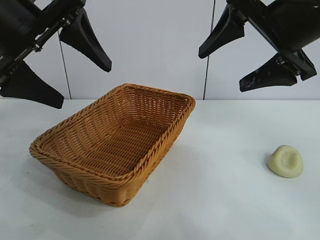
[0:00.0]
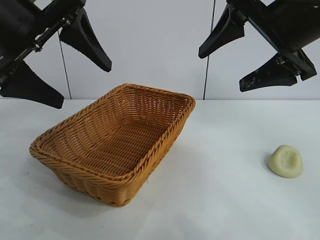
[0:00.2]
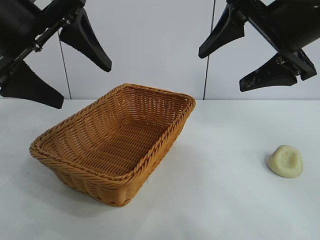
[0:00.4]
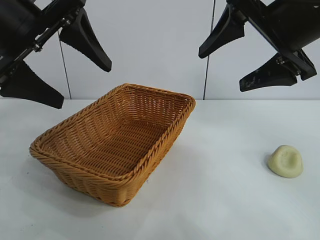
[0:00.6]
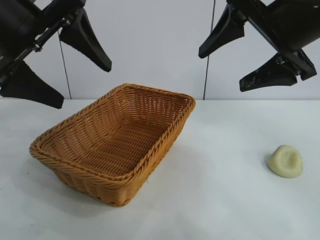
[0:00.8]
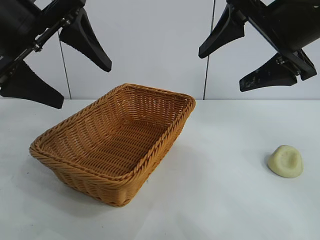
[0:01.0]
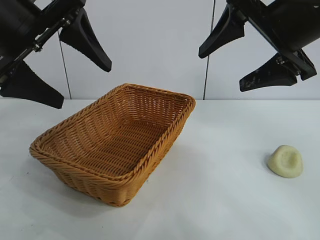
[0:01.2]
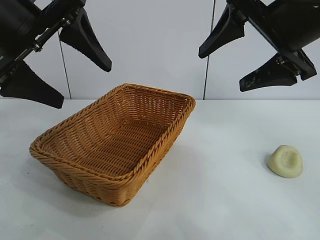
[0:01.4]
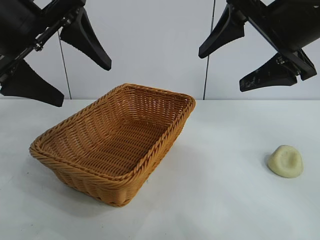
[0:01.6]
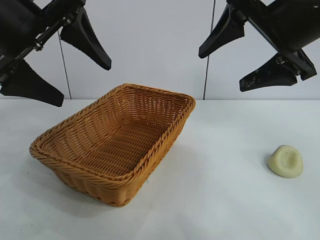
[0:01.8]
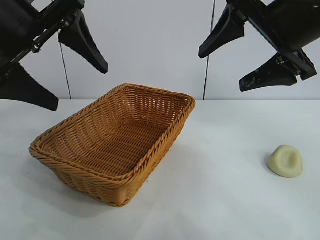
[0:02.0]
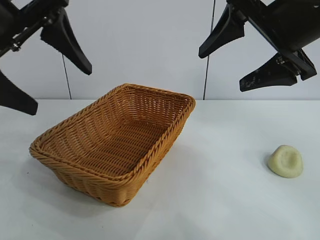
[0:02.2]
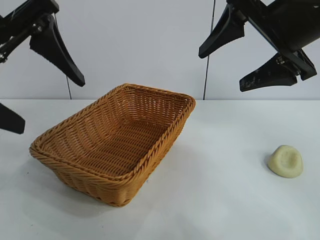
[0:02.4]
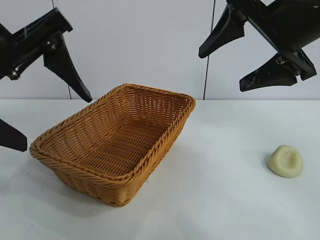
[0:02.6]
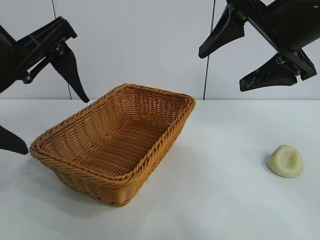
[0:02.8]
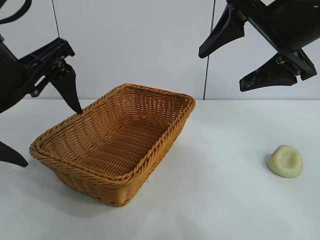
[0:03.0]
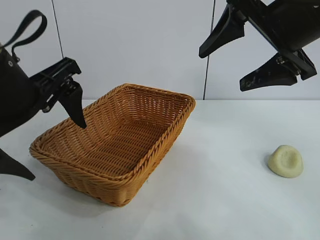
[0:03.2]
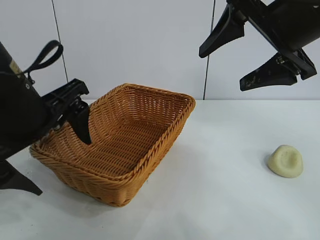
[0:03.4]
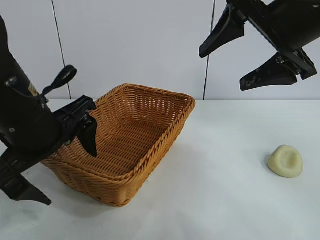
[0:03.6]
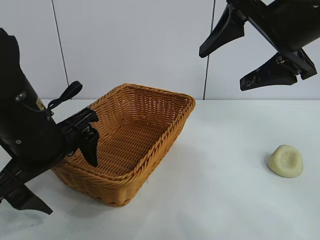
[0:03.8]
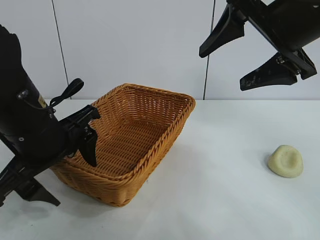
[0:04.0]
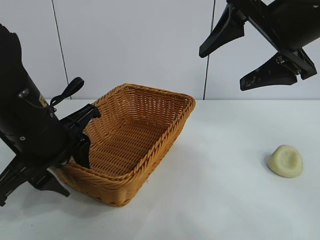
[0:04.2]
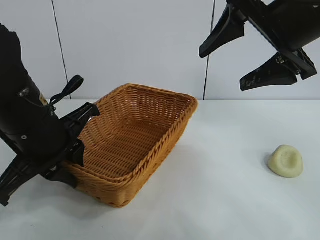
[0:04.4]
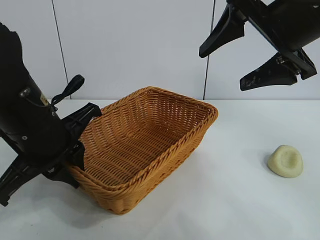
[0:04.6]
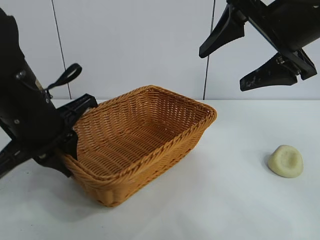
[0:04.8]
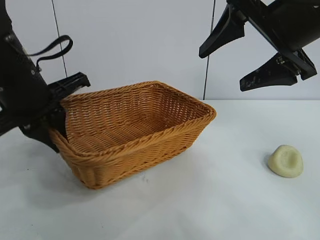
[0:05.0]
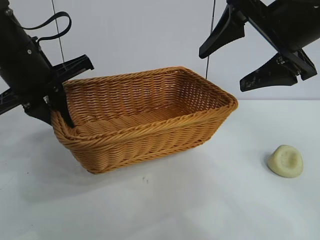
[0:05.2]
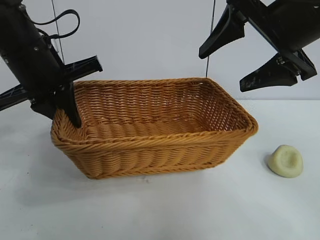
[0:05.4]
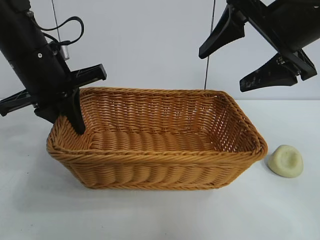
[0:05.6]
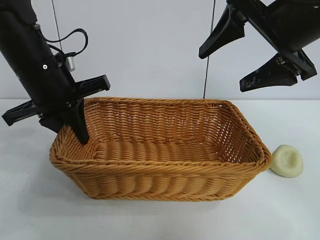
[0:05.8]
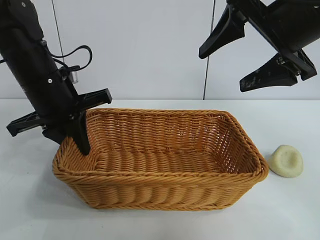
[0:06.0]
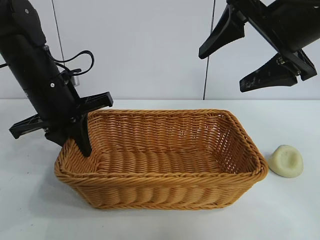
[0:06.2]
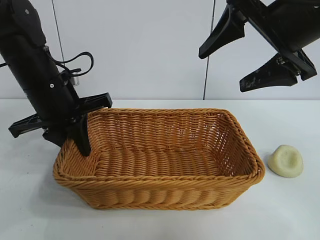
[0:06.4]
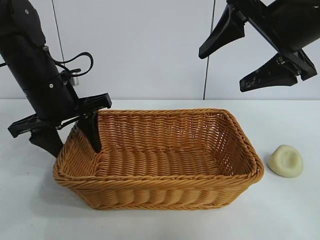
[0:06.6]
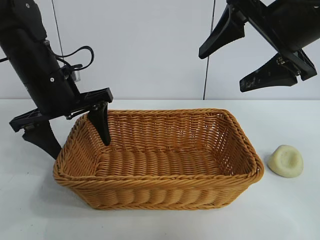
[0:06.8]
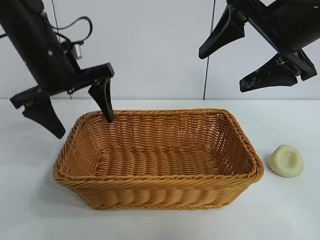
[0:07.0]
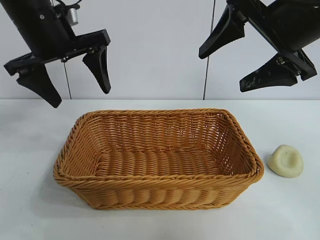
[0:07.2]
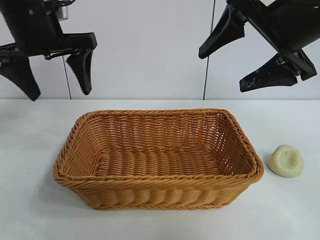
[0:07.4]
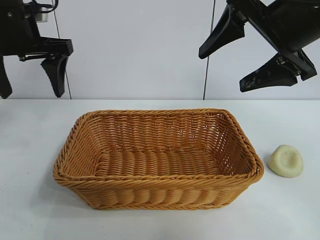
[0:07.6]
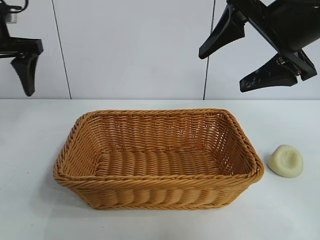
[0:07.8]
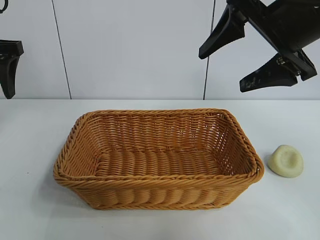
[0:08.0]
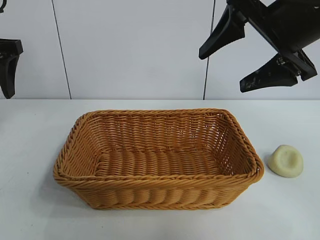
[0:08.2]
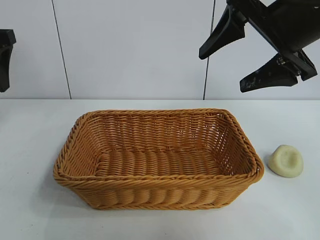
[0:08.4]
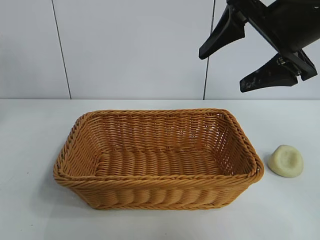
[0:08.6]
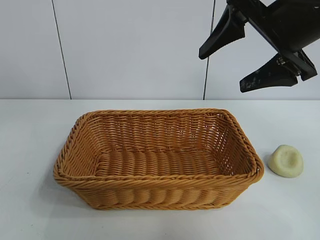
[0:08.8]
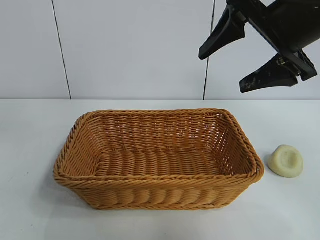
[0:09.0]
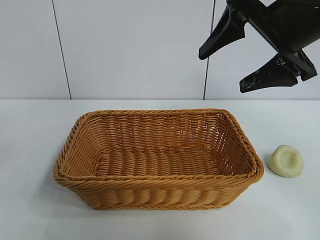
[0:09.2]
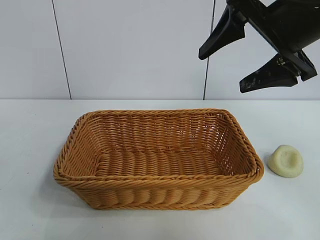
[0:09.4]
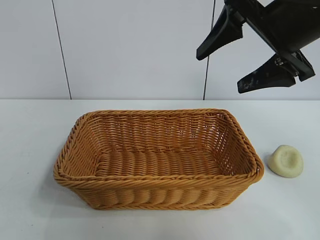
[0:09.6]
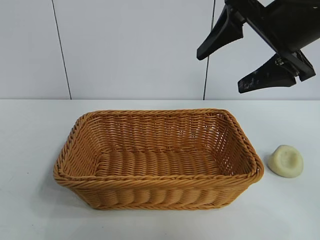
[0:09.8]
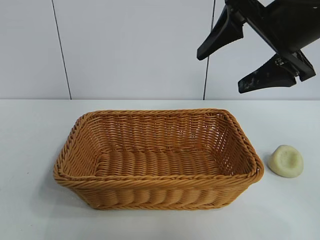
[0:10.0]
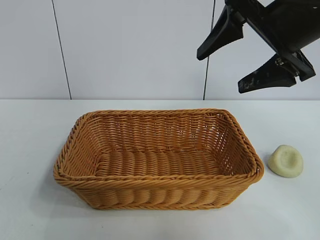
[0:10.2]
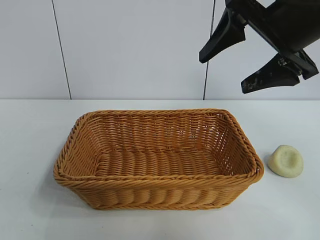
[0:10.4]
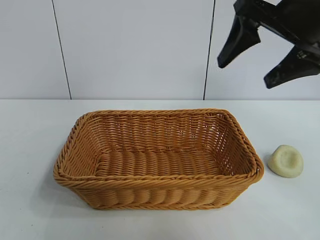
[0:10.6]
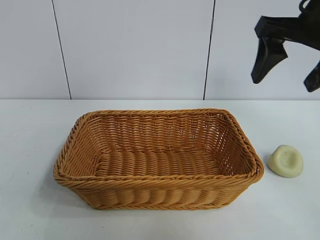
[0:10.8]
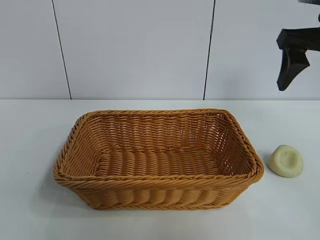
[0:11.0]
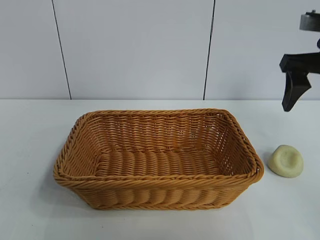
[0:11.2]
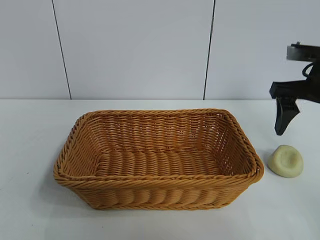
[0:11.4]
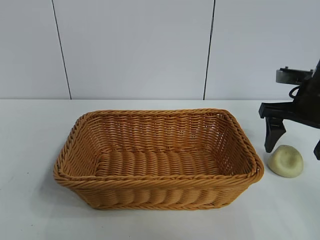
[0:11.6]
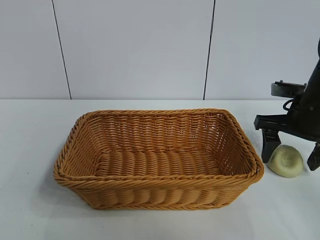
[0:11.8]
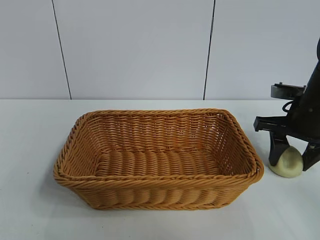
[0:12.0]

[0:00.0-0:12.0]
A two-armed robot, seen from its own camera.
Task of the whole recording: pick up the egg yolk pastry and put it into the basket.
Step, 1.4 to 4.4 s: Grasp the basket with left gripper.
Step, 4.6 to 6.6 s: Place the basket in the center of view with left gripper.

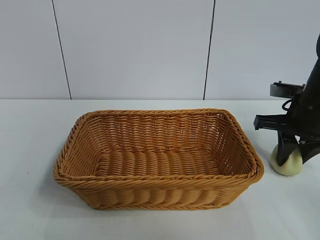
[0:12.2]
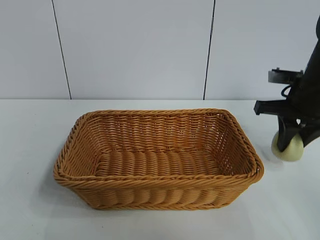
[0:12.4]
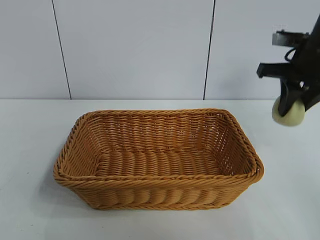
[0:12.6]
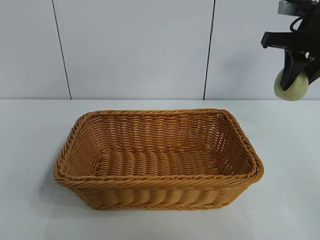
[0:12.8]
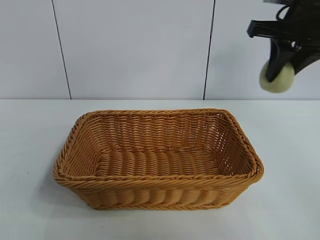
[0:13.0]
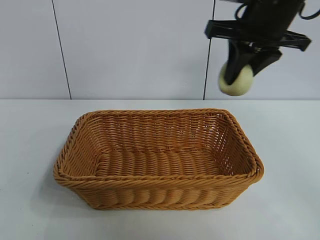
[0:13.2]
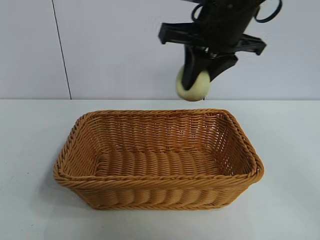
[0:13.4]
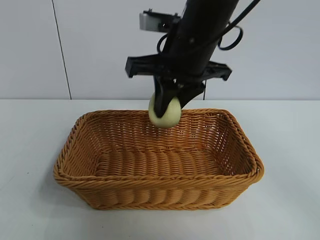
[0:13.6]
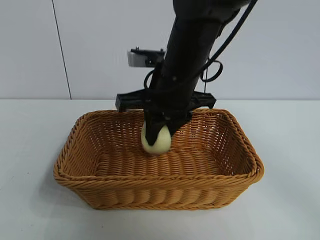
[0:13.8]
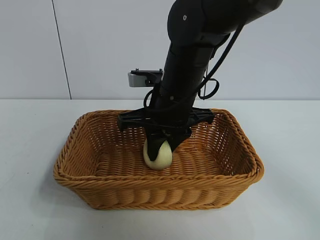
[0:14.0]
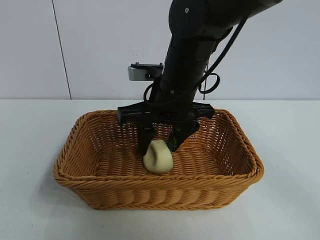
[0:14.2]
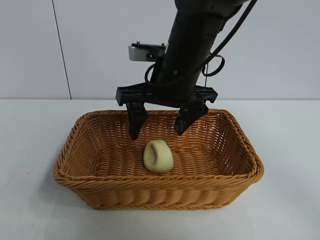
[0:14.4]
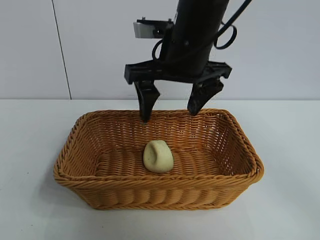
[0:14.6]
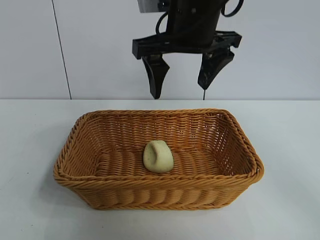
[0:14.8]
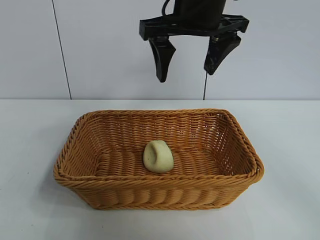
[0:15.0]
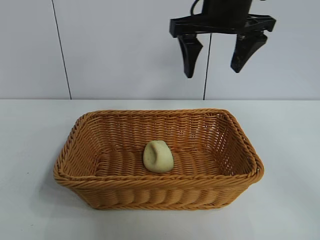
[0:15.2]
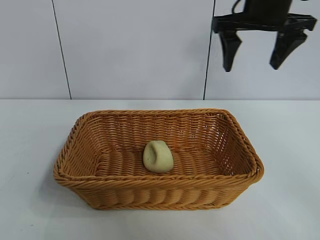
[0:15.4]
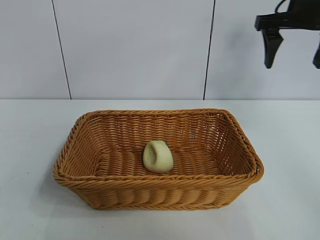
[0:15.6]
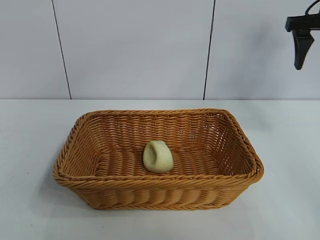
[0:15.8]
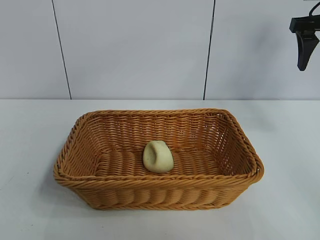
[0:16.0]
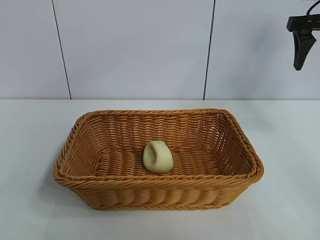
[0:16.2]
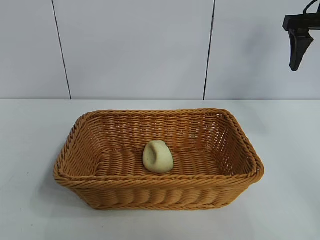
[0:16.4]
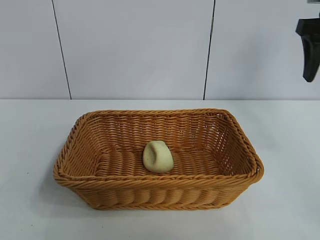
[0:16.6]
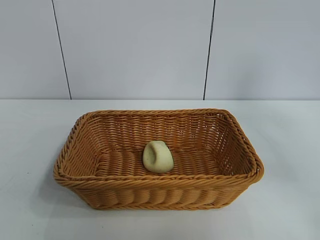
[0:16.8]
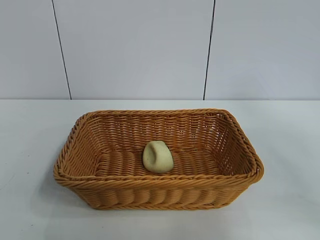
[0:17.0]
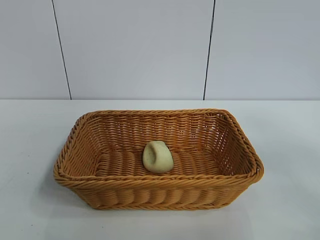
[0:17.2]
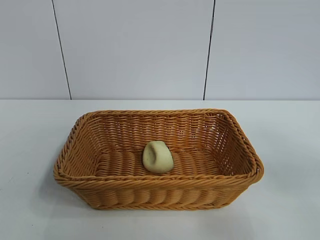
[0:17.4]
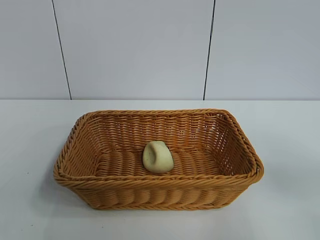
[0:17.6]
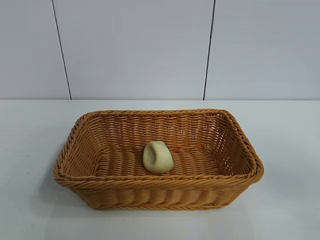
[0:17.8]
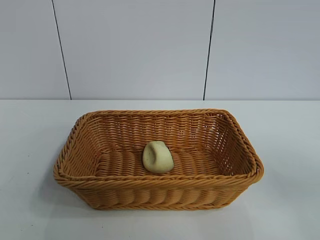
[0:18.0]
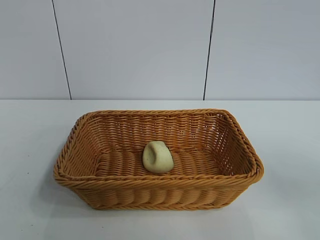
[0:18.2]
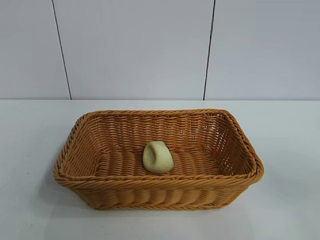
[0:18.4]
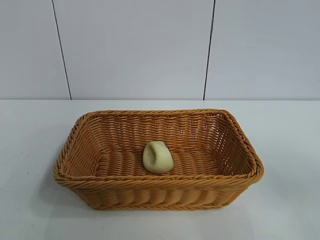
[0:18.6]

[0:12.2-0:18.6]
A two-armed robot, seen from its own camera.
Task of the whole recording: pick up the egg yolk pastry and put it into the basket.
Step, 12.4 to 14.2 s: Place the egg yolk pastry in the basket with right gripper.

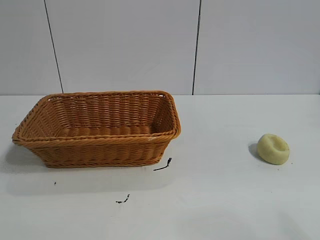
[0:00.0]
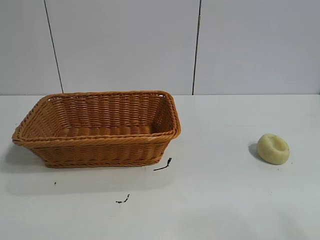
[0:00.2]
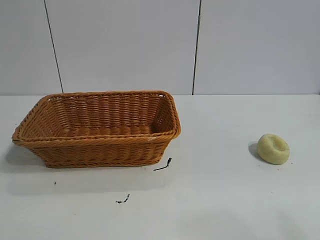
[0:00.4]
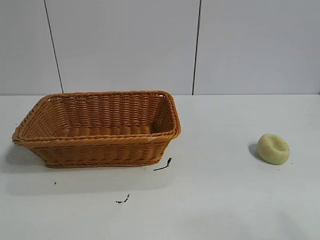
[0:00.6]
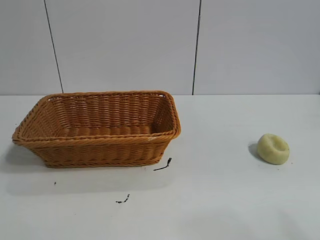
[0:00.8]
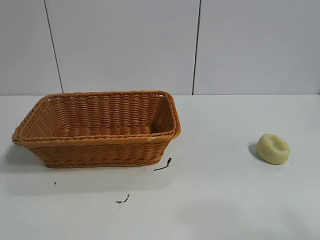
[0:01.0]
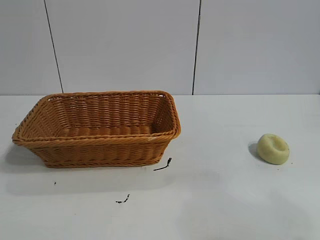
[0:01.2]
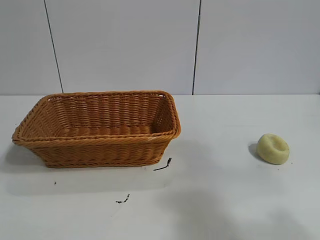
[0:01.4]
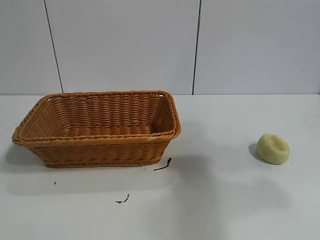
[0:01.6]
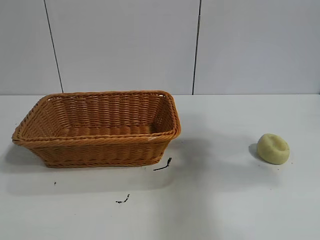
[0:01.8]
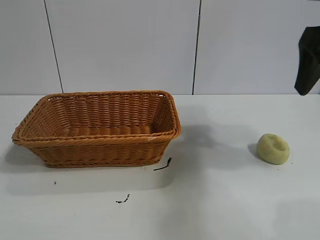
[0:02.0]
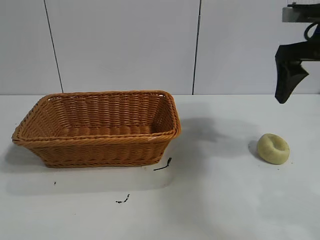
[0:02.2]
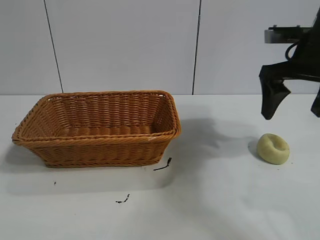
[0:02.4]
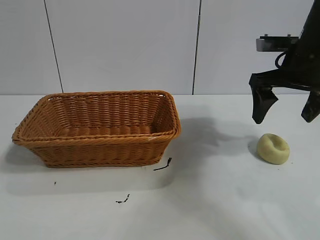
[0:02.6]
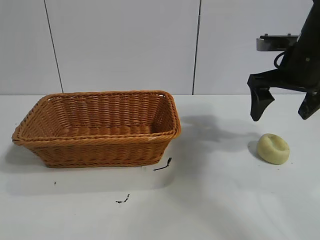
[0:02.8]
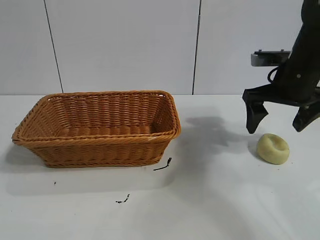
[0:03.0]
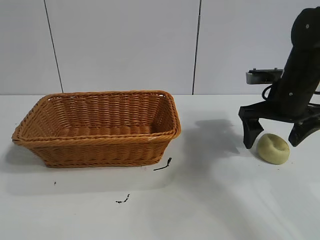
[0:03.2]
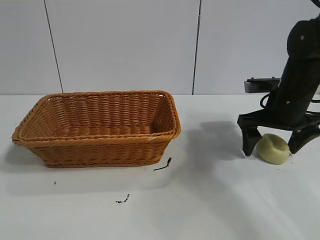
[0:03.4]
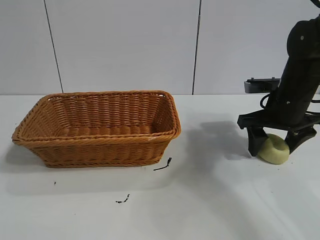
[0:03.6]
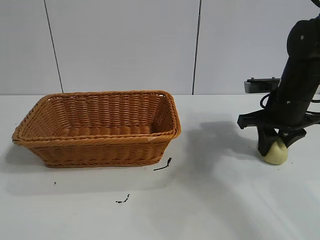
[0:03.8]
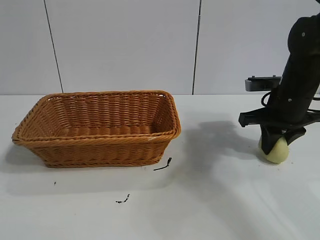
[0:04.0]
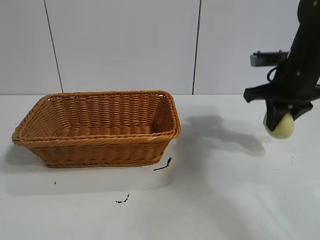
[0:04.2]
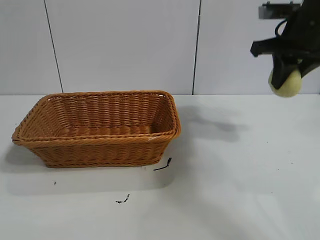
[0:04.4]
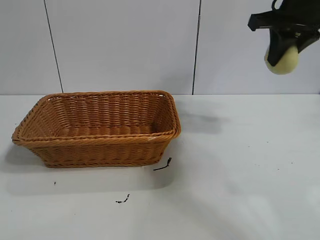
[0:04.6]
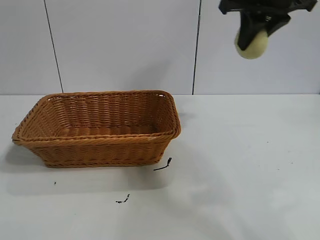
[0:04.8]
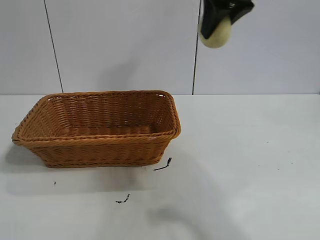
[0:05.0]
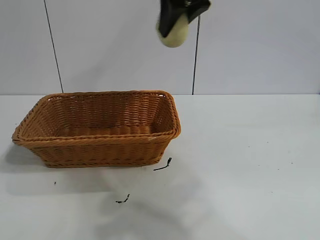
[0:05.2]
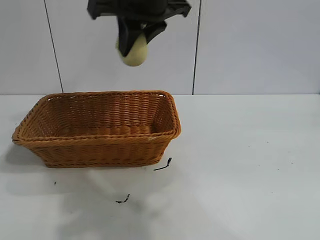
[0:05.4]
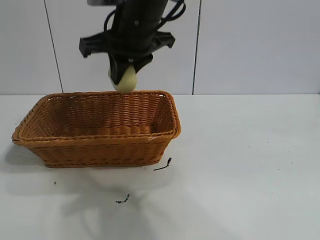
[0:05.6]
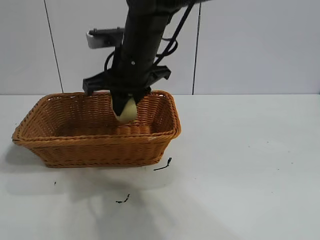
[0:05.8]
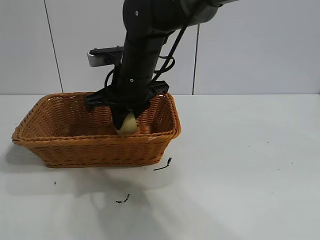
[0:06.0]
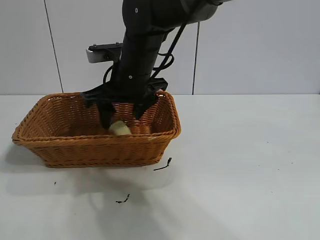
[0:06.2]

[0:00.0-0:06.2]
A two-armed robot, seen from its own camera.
Task of the whole recording: pick up the egg yolk pastry and put it into the basket.
Step, 0.8 to 3.8 s: Grasp egg yolk pastry with right gripper.
Step, 4.0 to 6.2 s: Place the egg yolk pastry in the basket with right gripper.
